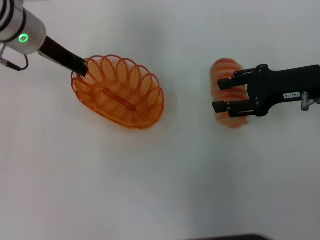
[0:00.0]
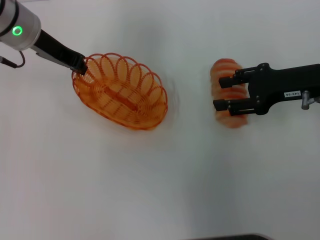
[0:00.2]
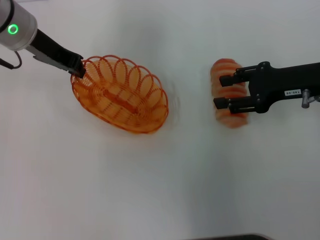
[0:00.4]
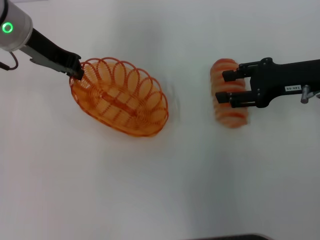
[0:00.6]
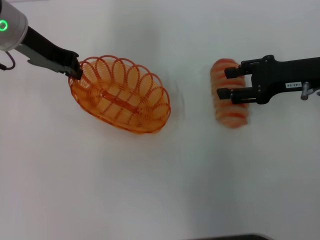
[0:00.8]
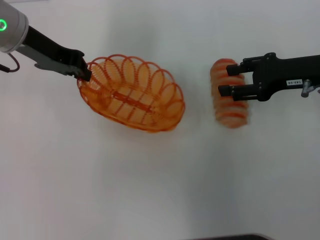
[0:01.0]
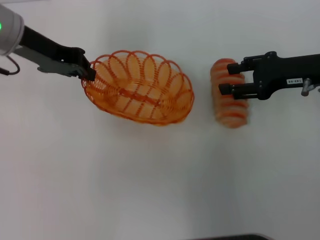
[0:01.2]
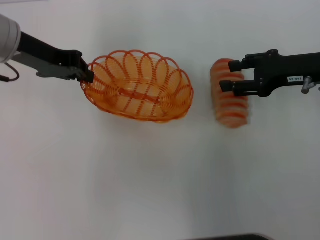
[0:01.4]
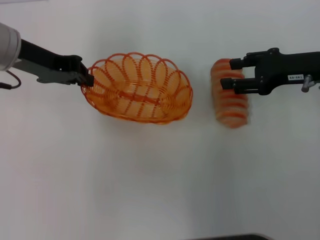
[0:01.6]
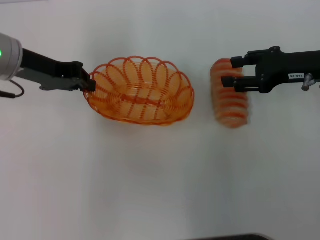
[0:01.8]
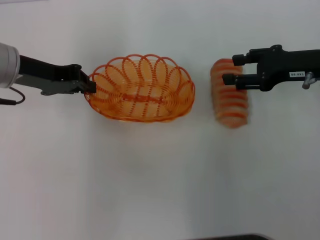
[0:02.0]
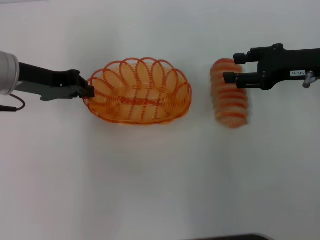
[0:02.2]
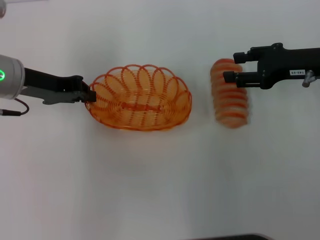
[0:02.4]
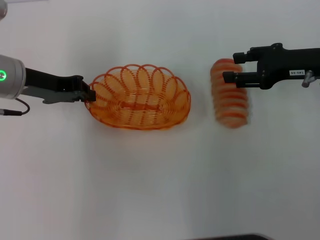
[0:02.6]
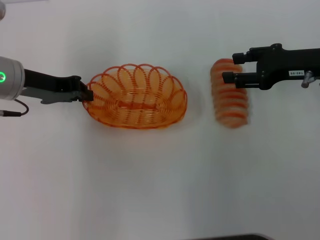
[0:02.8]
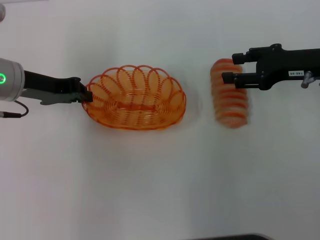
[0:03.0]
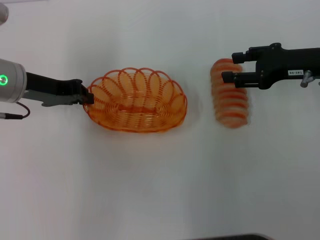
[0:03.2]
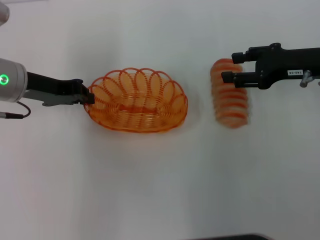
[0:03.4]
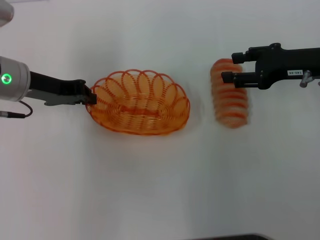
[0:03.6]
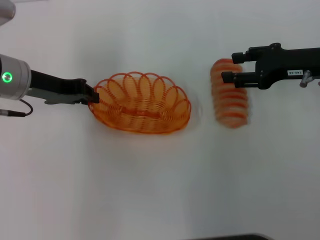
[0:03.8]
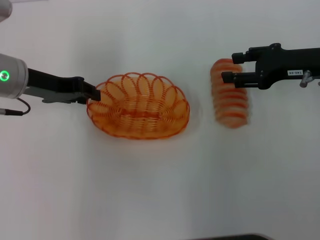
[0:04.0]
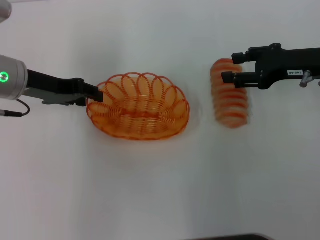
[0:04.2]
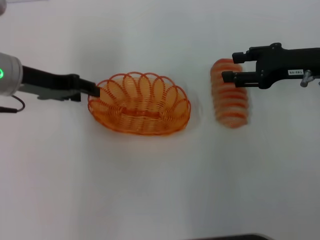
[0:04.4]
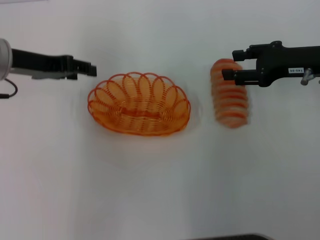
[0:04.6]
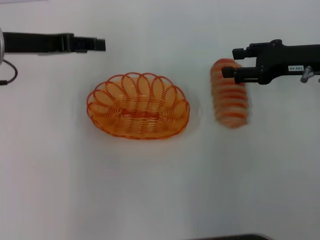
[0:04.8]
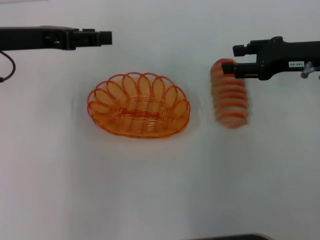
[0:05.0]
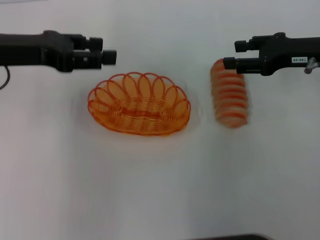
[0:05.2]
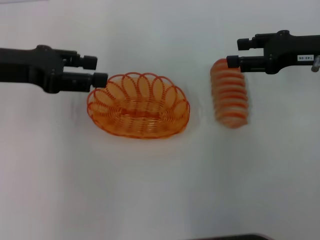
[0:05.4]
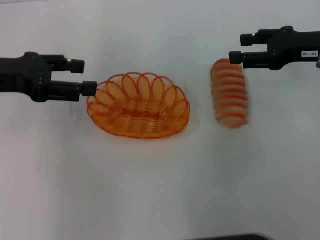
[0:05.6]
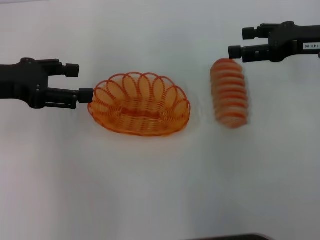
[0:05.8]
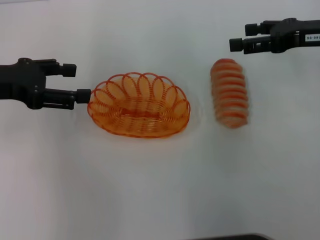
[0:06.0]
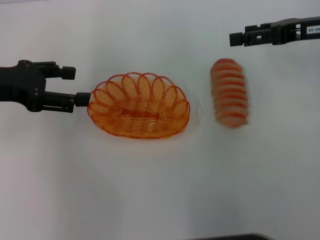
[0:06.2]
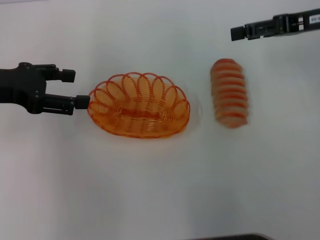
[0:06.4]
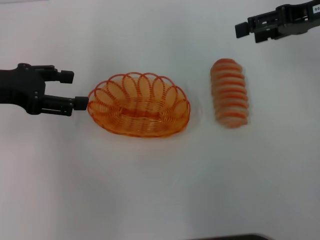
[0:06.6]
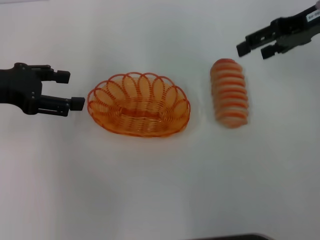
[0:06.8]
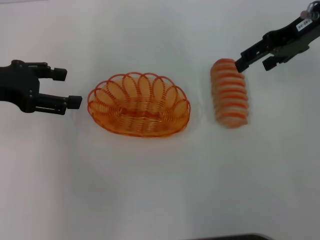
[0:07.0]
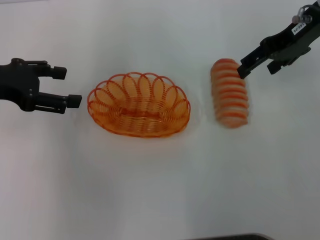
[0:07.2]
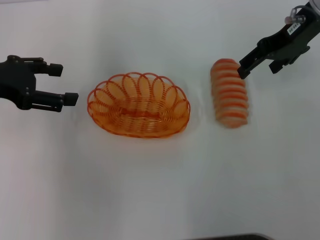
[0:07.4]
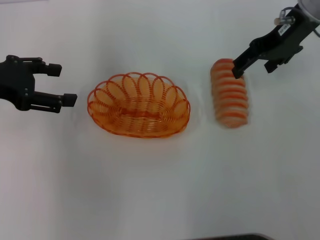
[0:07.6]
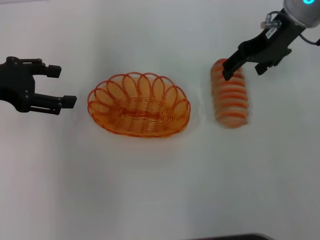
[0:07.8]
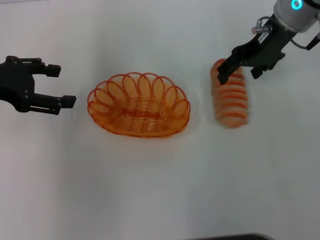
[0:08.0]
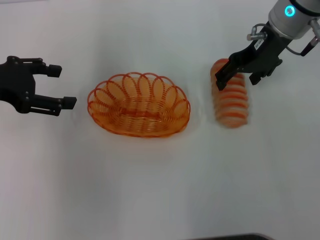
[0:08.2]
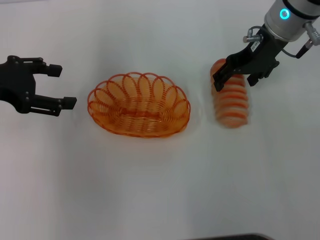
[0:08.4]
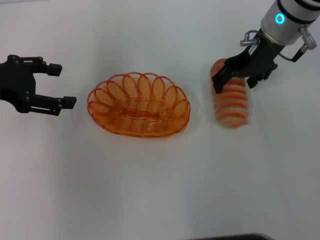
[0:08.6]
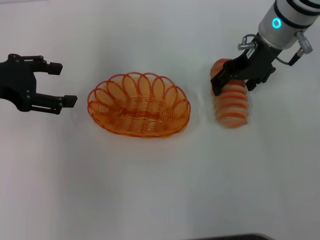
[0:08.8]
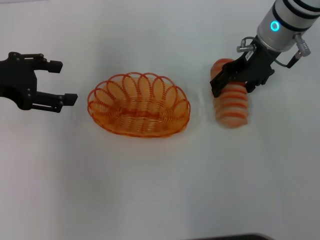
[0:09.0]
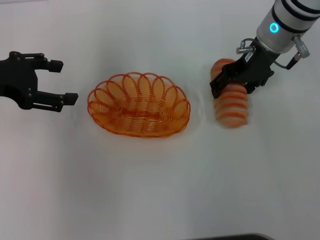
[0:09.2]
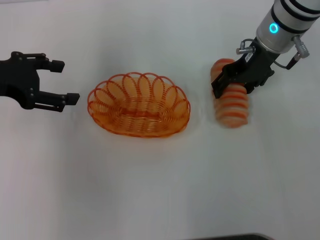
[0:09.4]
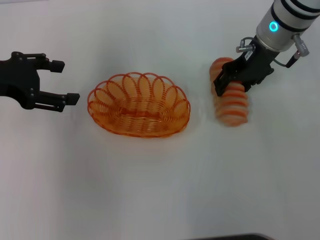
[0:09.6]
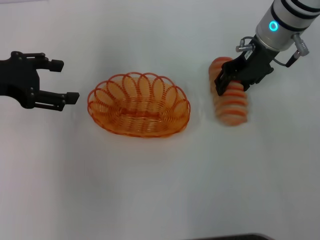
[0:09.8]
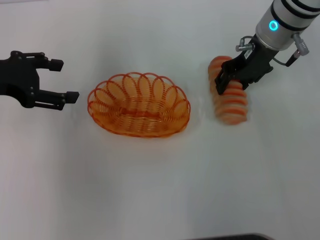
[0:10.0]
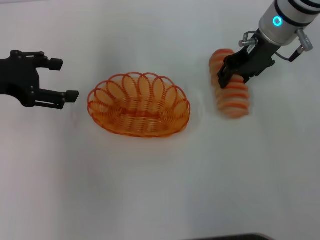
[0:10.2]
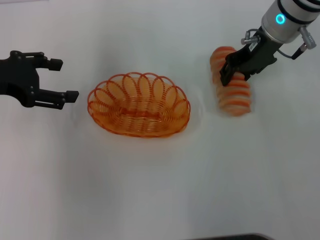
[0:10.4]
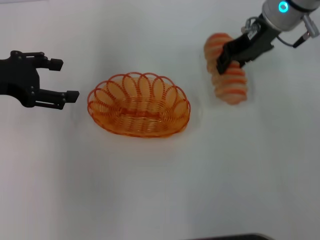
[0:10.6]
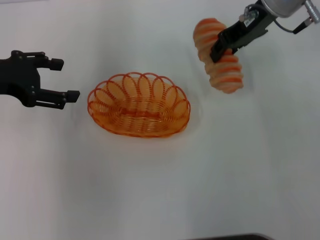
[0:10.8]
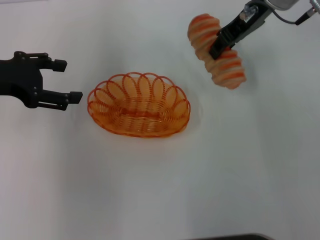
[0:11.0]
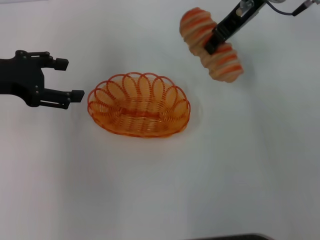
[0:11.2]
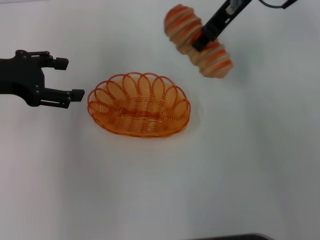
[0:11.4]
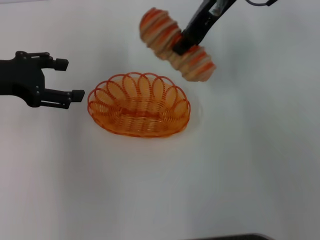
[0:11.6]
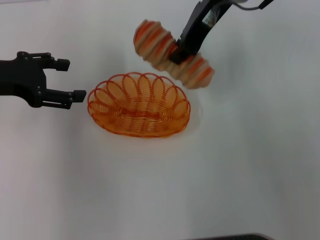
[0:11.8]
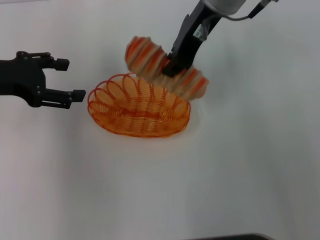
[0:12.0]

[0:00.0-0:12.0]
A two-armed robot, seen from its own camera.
Step, 0:00.6 to 0:04.4: Place the basket in the center of view with the left gripper.
Step, 0:04.6 to 0:10.2: Pick up the long bread with the right gripper.
0:00.0 to 0:01.6: The left gripper moves roughly 5 cm.
0:01.6 to 0:03.0: The left gripper ends up roughly 5 cm from where it was.
0:03.0 to 0:04.4: The left gripper opens up.
0:04.4 to 0:06.0: The left gripper goes some 5 cm to the left, and opens up.
0:06.0 to 0:07.6: The right gripper shifts approximately 10 cm to the left and forward.
0:07.6 to 0:09.0: The right gripper is displaced downward by approximately 5 cm.
0:09.0 to 0:10.4: The right gripper closes.
0:10.4 to 0:12.0: The right gripper shifts roughly 10 cm to the left and upward, and closes up.

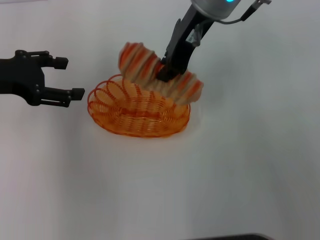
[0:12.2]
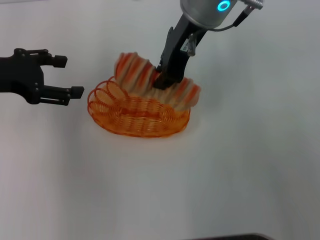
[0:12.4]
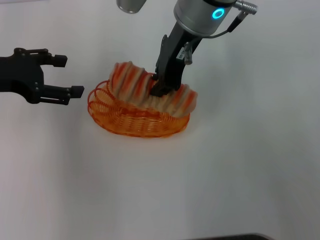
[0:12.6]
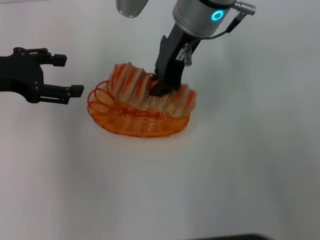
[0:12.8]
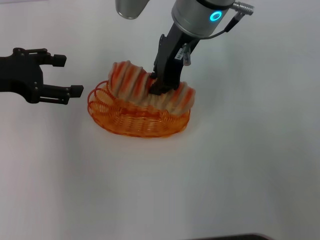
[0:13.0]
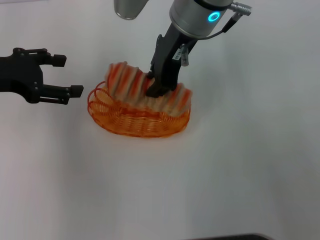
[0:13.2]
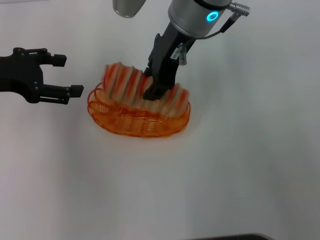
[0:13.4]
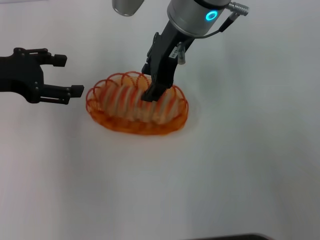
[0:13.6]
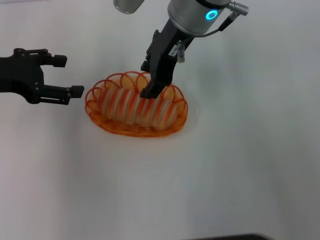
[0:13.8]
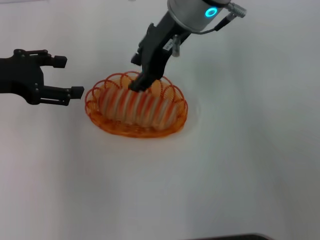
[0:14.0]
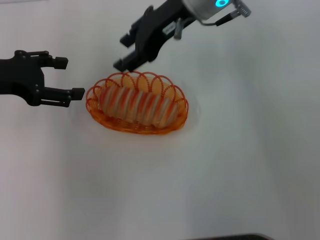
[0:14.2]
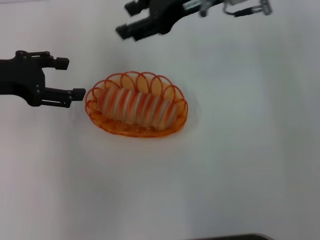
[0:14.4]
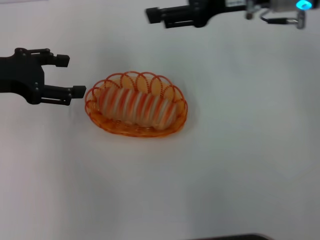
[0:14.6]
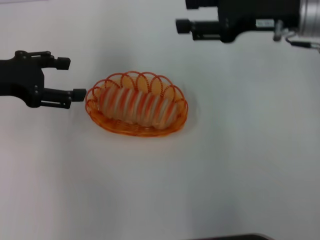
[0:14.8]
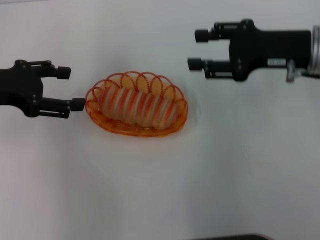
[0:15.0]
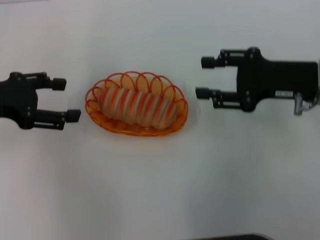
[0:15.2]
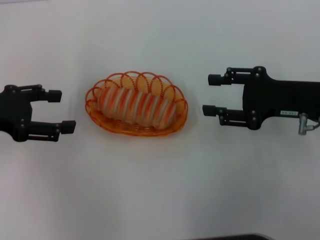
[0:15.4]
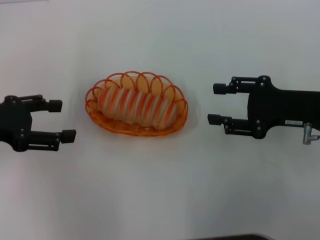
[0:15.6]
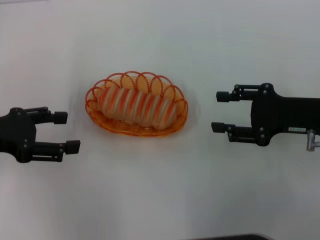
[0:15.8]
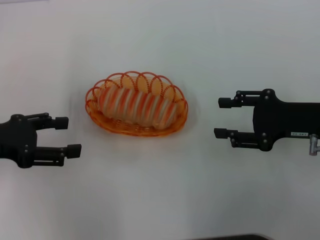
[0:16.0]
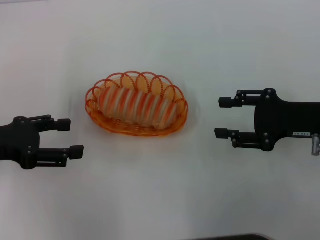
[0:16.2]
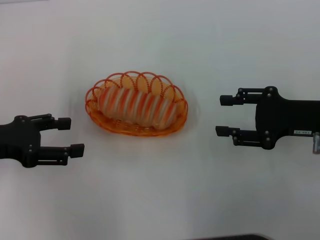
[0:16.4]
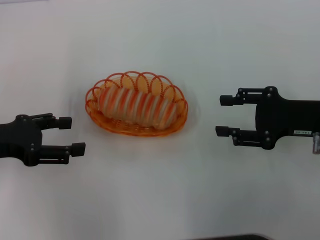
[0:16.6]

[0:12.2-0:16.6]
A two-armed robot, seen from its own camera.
0:12.2 to 0:13.6: The grippers move only a little.
0:13.6 to 0:15.2: The right gripper goes about 25 cm to the right, downward and backward.
0:15.2 to 0:16.6: The right gripper moves about 5 cm, while the left gripper shifts by approximately 5 cm.
